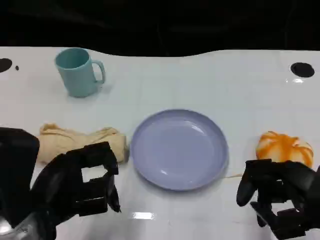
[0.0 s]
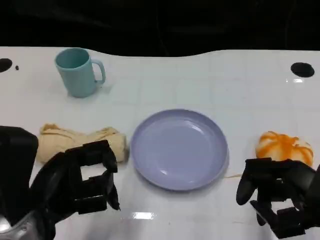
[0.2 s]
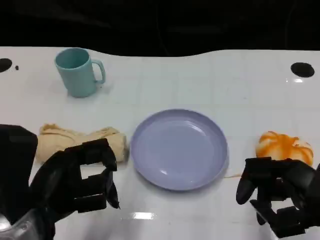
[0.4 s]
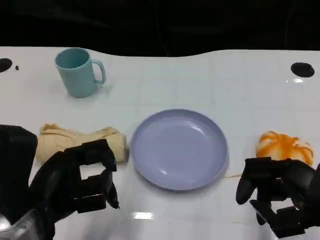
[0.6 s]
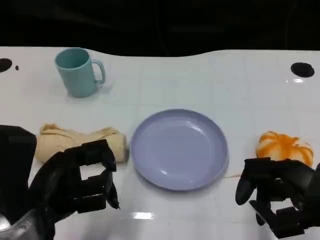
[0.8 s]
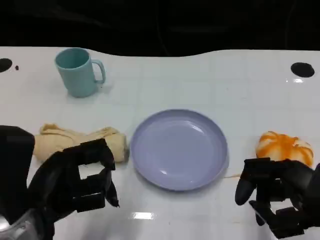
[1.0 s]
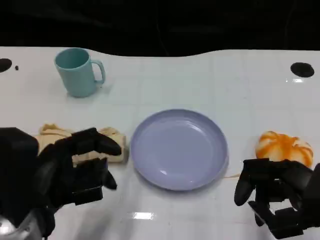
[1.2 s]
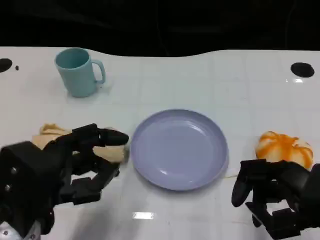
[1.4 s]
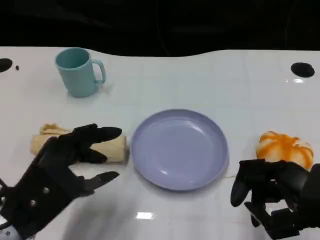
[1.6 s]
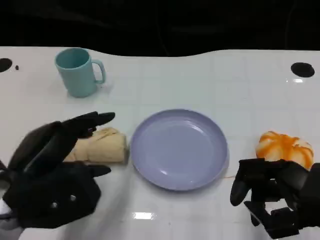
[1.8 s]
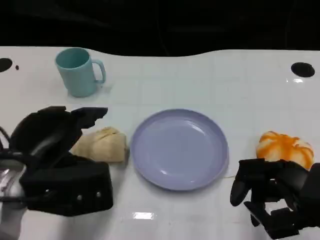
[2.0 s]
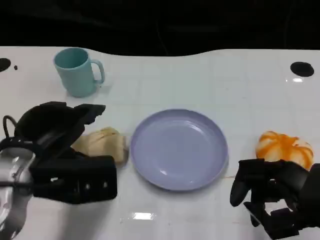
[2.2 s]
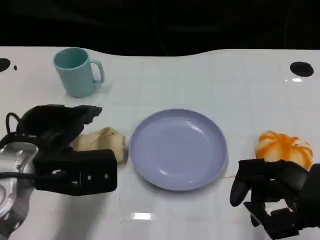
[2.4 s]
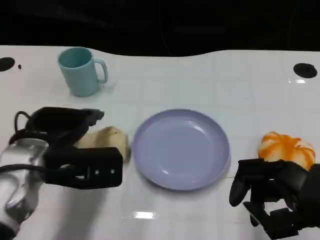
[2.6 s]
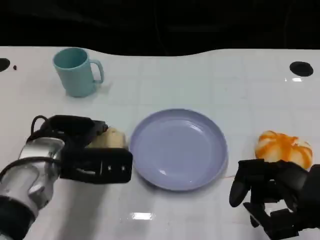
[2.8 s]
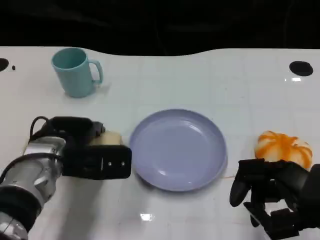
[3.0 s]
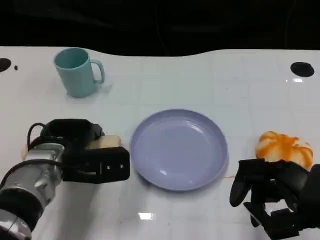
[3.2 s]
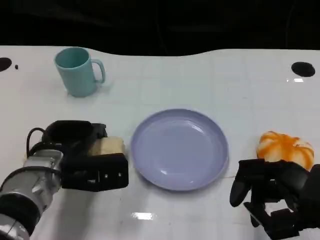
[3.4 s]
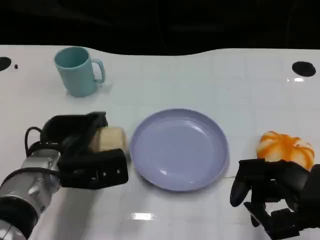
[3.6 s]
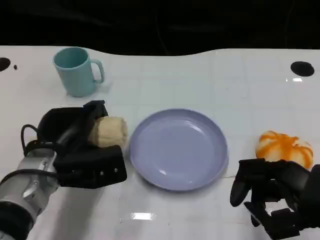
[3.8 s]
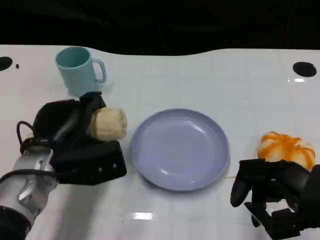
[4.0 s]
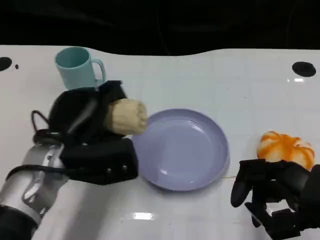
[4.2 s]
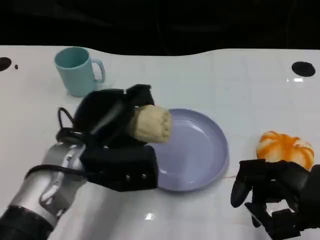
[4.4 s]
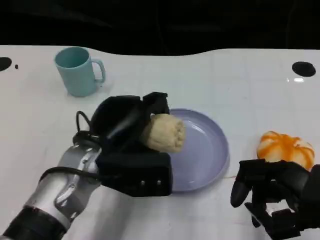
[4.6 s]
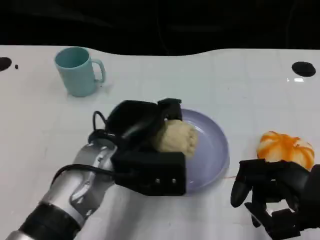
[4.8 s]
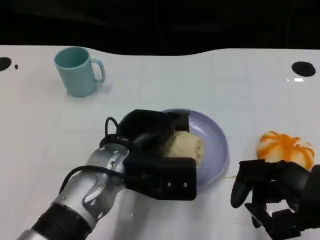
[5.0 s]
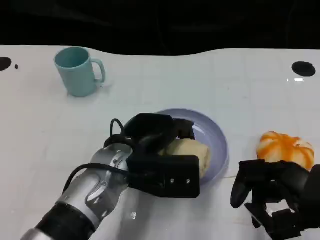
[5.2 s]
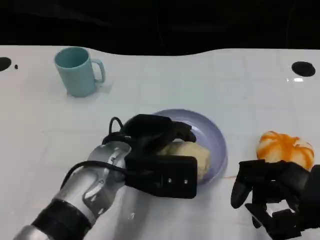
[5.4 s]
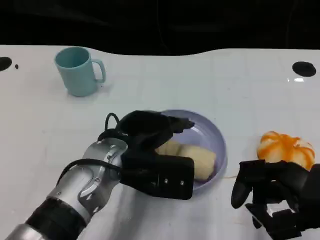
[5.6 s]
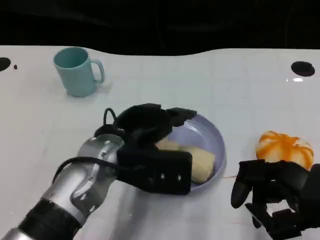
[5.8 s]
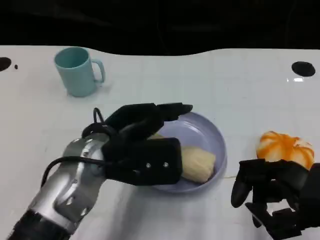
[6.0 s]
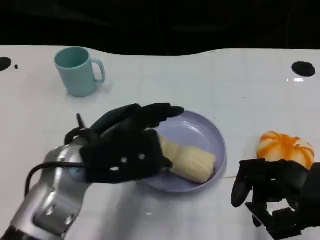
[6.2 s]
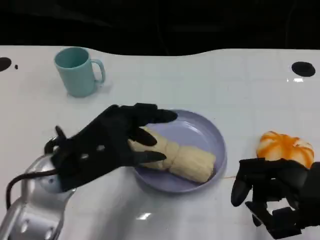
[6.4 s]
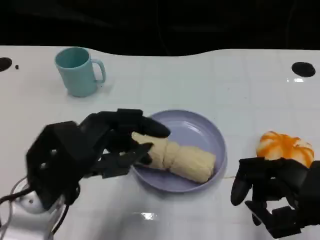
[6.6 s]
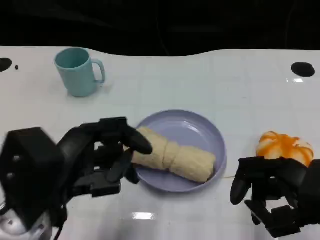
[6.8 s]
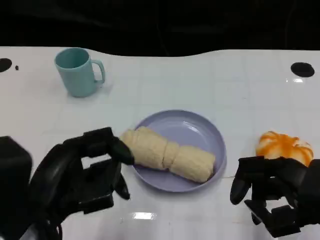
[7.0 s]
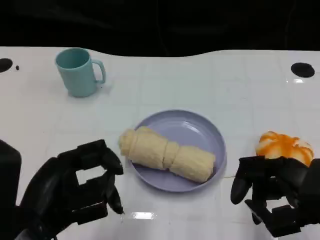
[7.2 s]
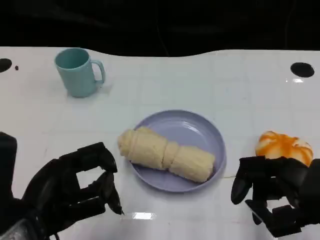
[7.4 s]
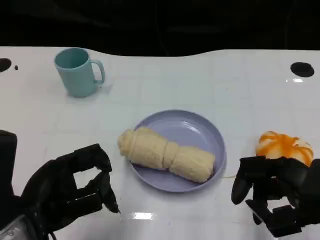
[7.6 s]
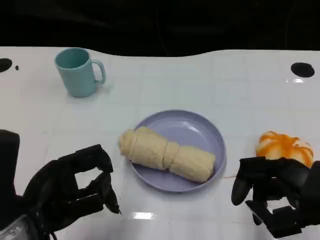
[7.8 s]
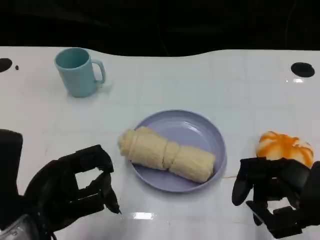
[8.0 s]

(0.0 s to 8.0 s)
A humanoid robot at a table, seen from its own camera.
Task of the whole recording: Grasp the towel on the left side of the plate with the left hand and place it into the plate.
1.6 s - 3.2 s: The left hand moves forward and downward, about 10 cm.
3.2 s - 4.8 s: The left hand goes some 10 cm to the right.
4.8 s - 6.4 s: The left hand heads to the left, covering some 5 cm.
6.4 s - 8.0 s: The left hand shifts about 5 cm backward.

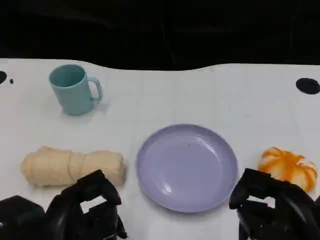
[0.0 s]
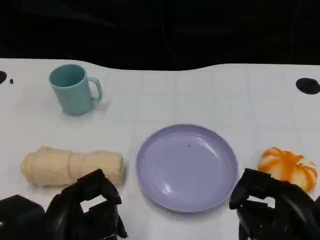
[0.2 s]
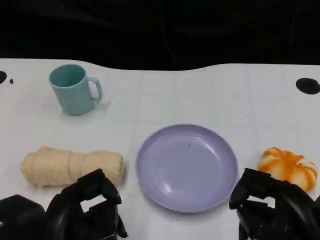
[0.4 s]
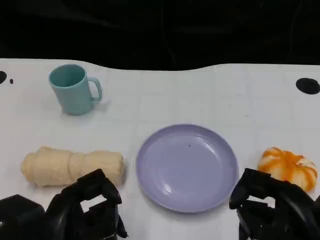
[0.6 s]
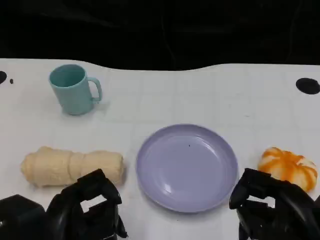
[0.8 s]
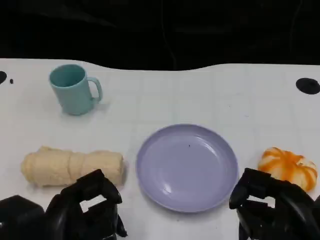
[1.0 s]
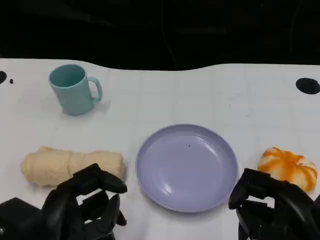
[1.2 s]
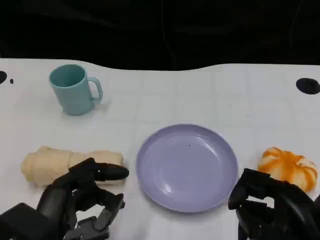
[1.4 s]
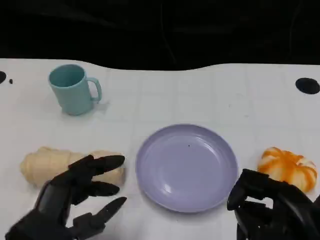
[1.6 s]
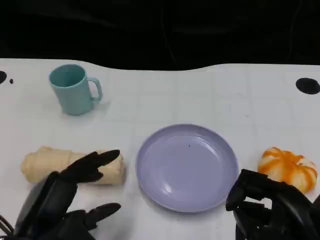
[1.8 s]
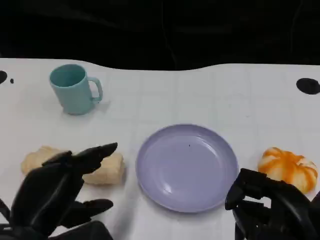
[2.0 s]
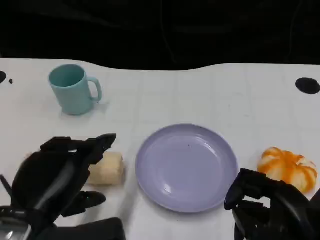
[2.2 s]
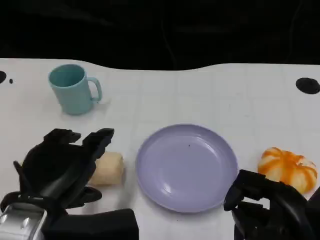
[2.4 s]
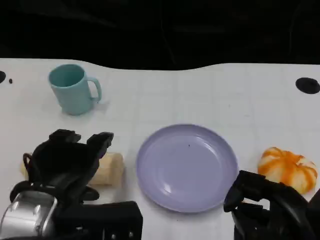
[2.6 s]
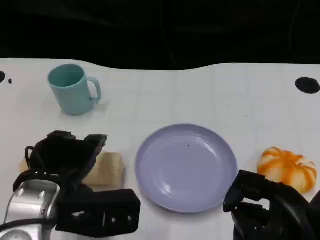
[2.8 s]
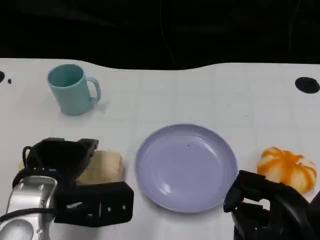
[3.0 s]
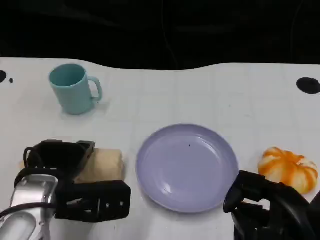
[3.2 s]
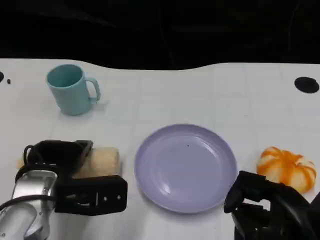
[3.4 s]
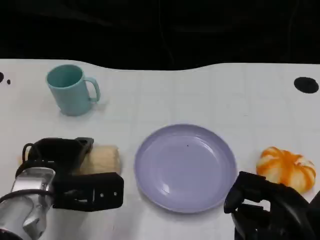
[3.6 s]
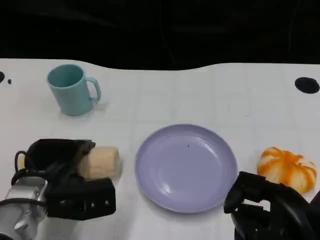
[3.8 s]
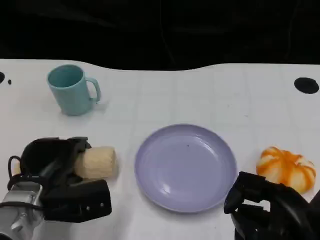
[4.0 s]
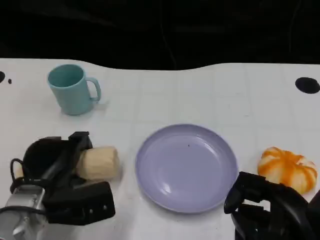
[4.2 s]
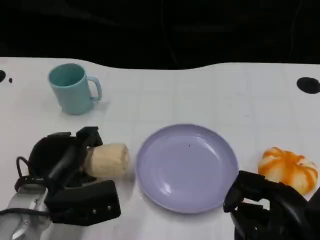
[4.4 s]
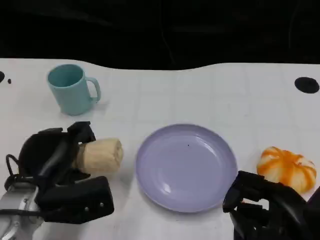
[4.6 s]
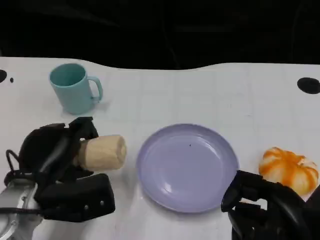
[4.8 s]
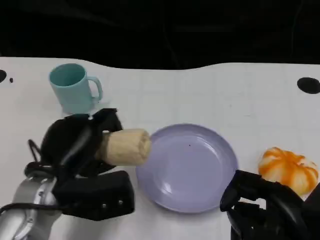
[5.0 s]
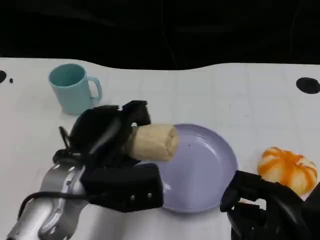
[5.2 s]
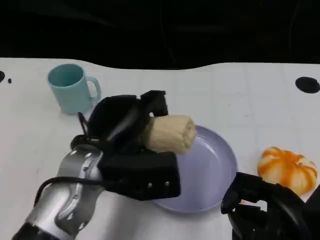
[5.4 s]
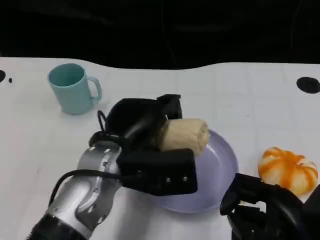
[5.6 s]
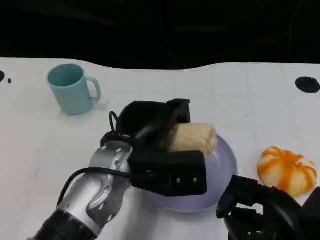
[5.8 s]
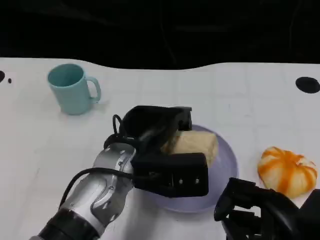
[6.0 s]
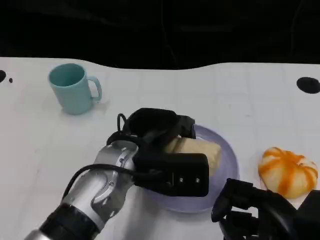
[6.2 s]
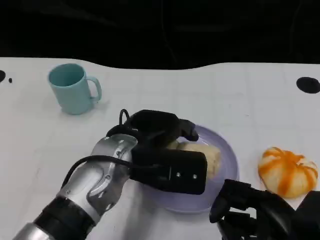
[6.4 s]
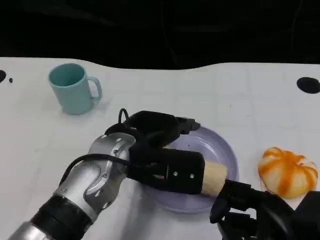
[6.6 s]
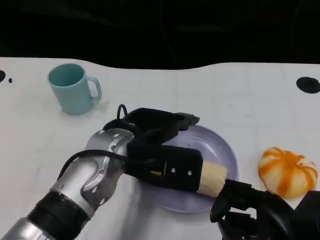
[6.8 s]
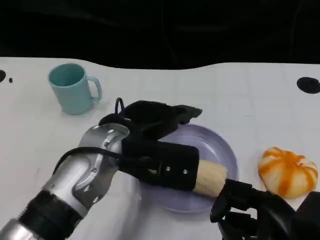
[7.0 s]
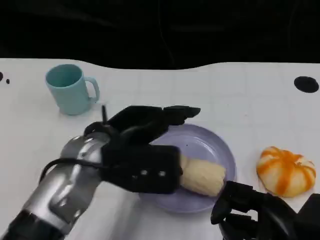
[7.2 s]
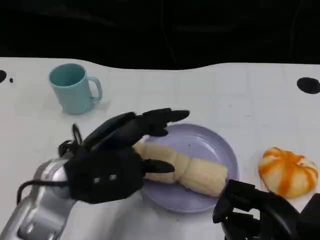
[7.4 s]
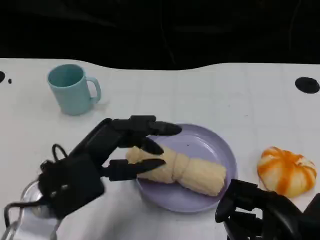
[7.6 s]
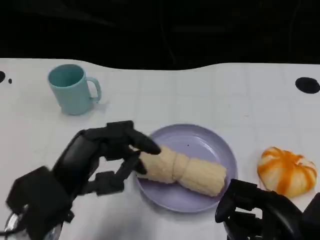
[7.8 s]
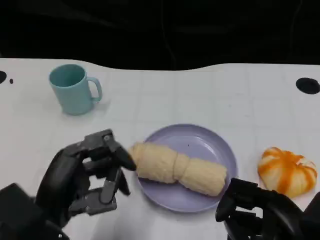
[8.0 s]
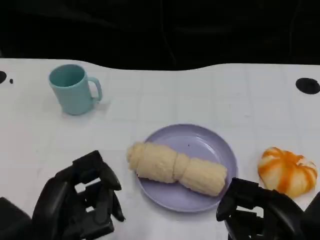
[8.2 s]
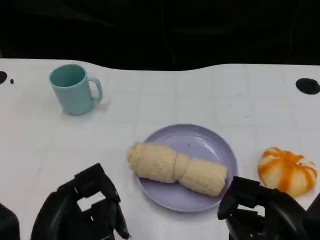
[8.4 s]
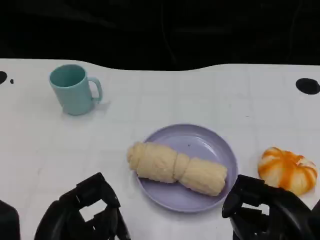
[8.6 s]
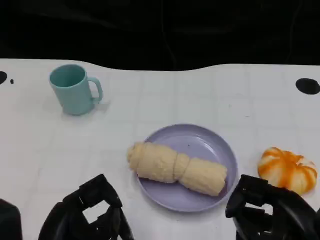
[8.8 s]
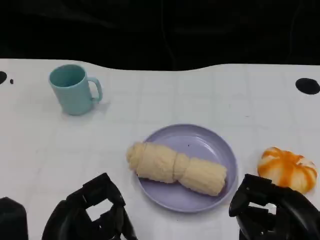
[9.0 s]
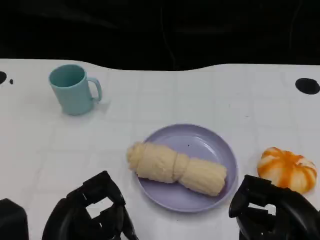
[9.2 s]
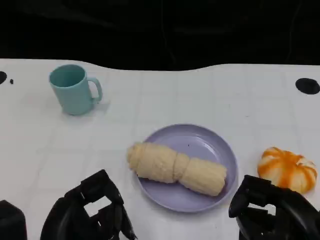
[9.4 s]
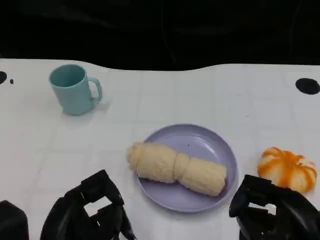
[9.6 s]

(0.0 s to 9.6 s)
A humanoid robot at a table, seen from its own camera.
Task of the whole recording: Grasp the towel on the left side of the plate with the left hand and place it into the plate.
1.6 s - 3.2 s: The left hand travels forward by approximately 10 cm.
4.8 s - 6.4 s: The left hand travels to the right and upward by some 15 cm.
6.4 s - 8.0 s: The left hand heads backward and to the left, covering approximately 15 cm.

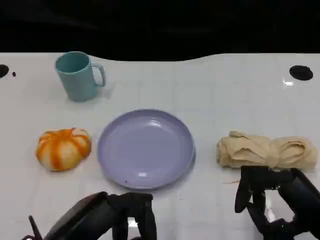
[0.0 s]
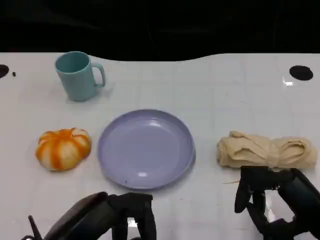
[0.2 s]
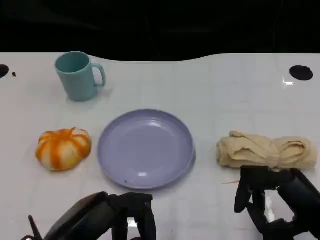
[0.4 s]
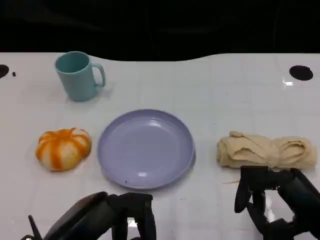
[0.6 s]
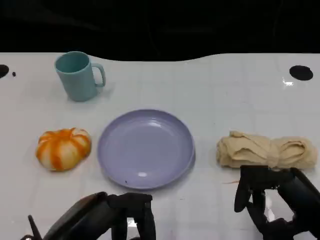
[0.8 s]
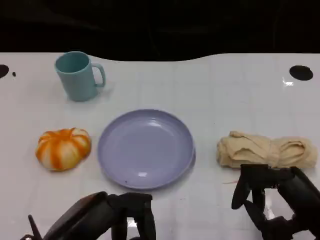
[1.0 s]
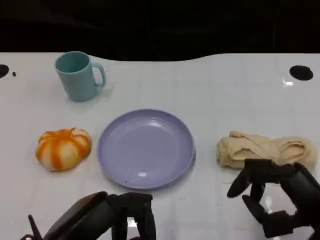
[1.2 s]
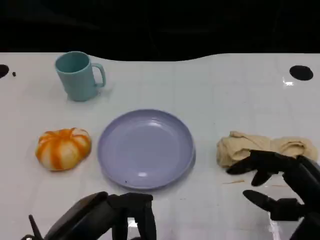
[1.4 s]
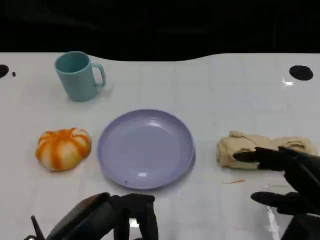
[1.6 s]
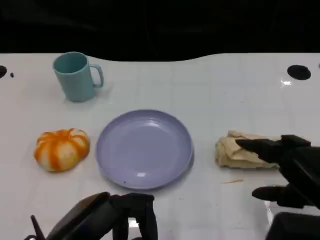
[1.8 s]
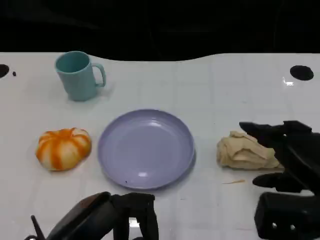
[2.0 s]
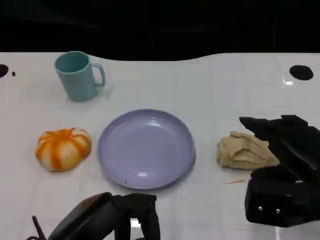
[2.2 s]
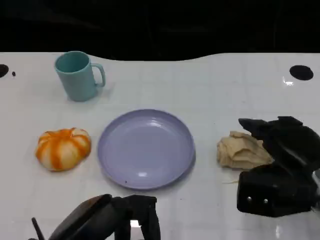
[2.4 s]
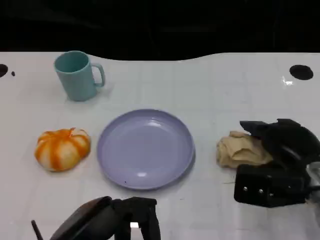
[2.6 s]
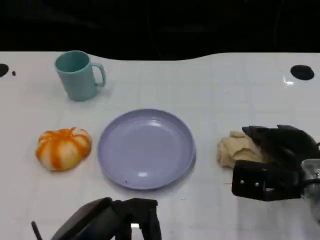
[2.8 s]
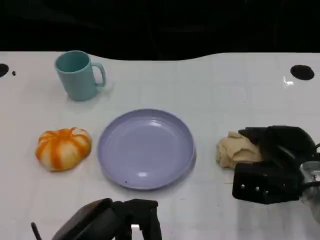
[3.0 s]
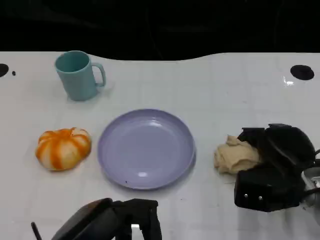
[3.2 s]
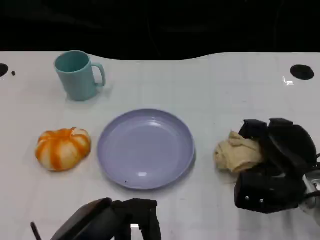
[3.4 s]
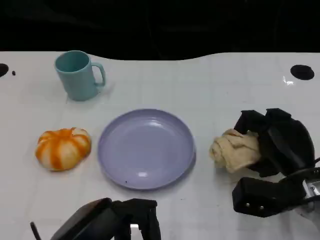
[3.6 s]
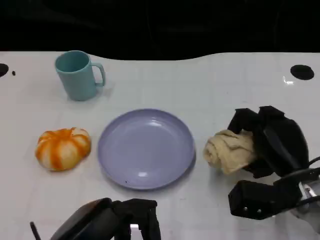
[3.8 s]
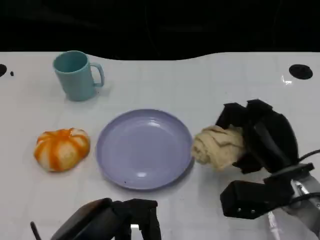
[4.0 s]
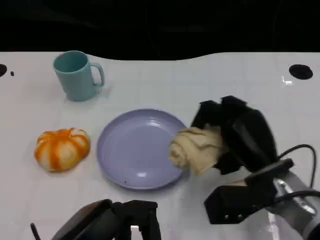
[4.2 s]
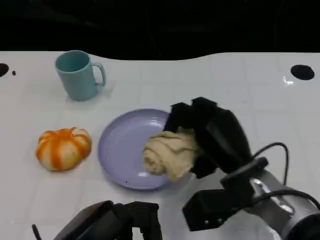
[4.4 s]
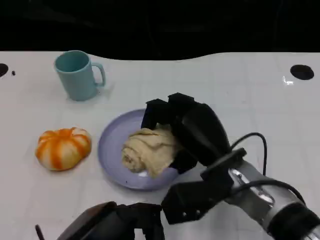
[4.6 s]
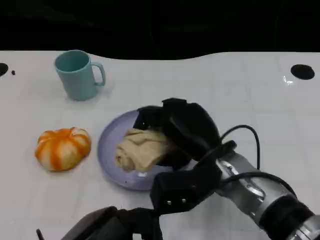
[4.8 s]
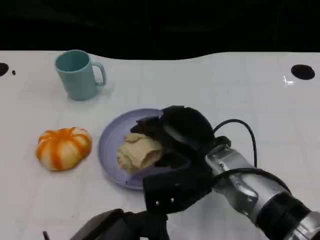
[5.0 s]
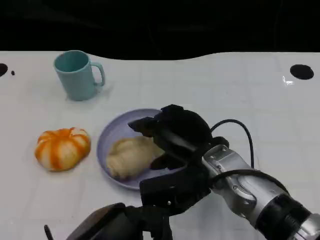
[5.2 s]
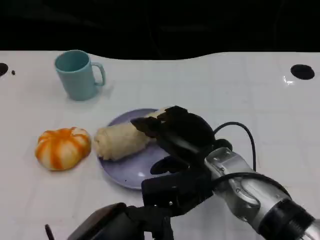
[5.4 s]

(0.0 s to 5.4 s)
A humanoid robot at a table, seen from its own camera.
Task of the whole recording: Grasp the towel on the left side of the plate with the left hand and place it into the plate.
0.0 s - 1.4 s: There are only small adjustments of the hands.
1.4 s - 2.8 s: The right hand travels forward by roughly 10 cm.
4.0 s - 5.4 s: The right hand heads to the left, covering approximately 10 cm.
